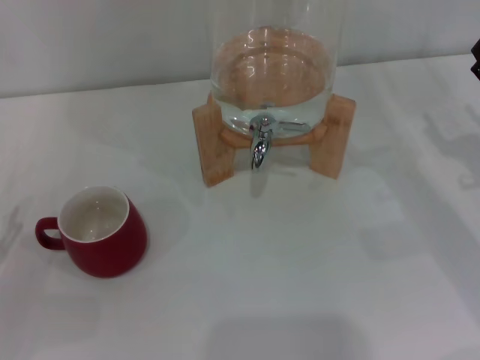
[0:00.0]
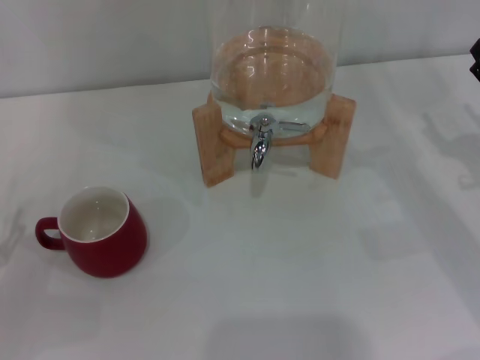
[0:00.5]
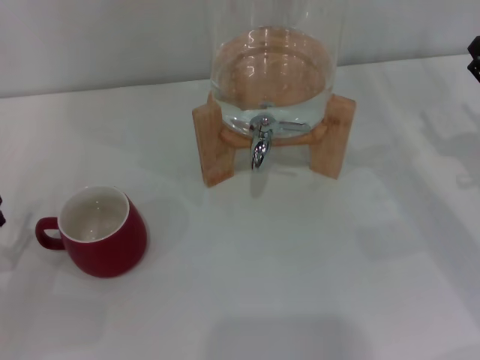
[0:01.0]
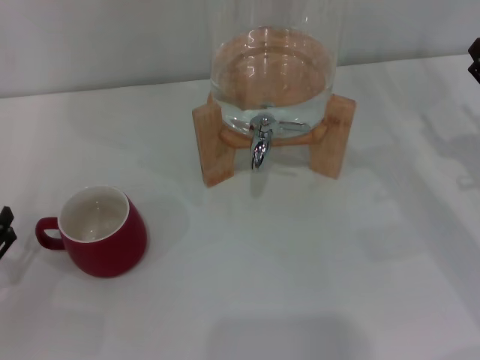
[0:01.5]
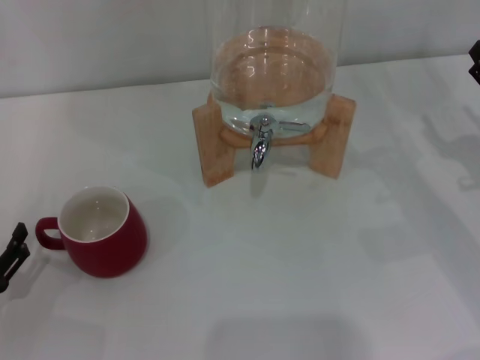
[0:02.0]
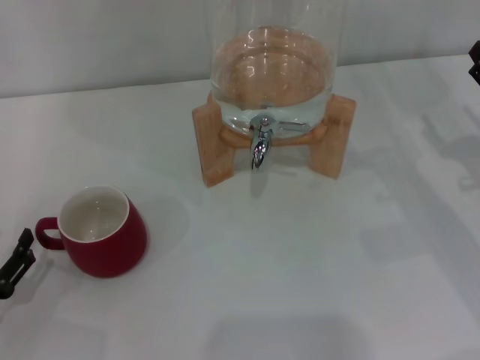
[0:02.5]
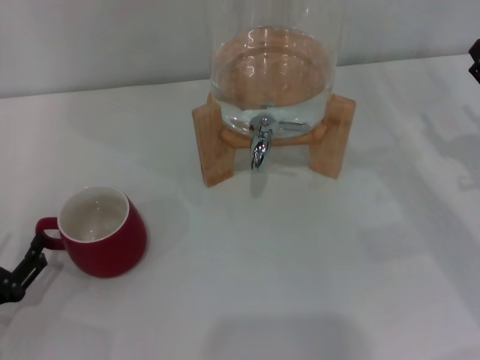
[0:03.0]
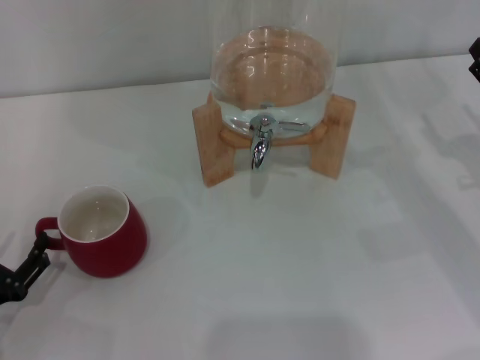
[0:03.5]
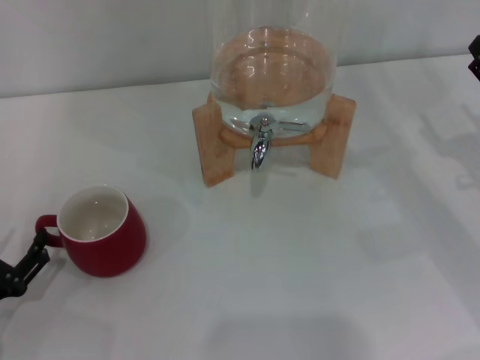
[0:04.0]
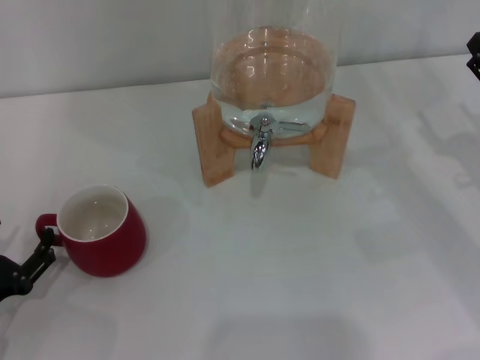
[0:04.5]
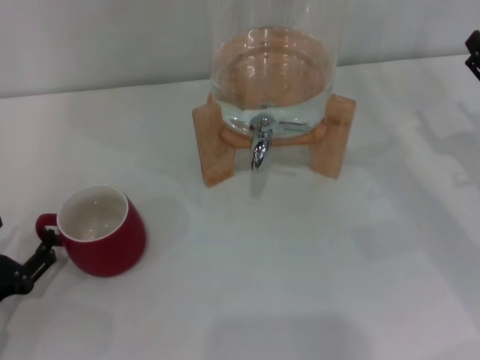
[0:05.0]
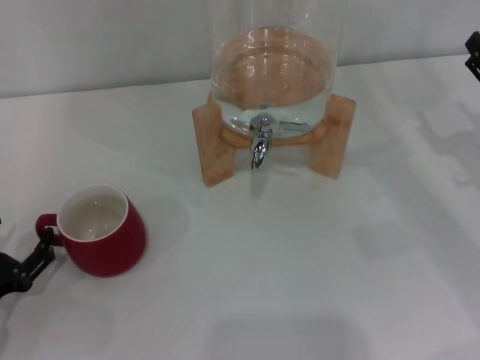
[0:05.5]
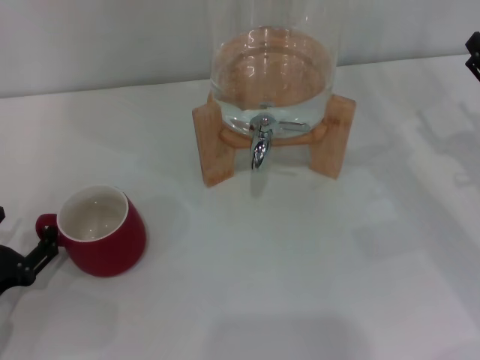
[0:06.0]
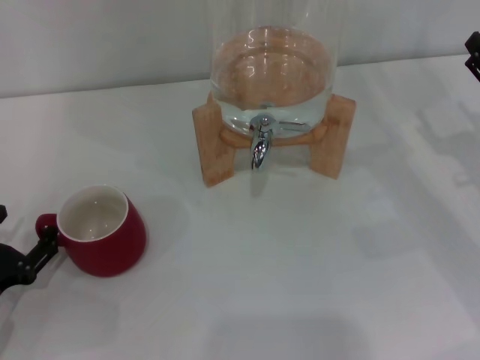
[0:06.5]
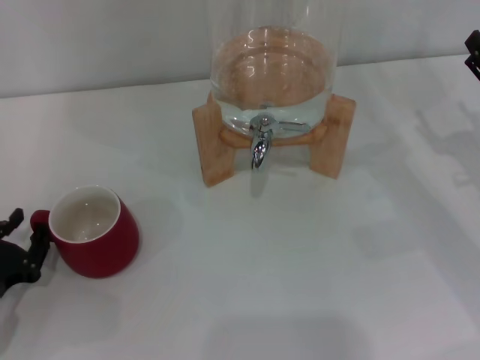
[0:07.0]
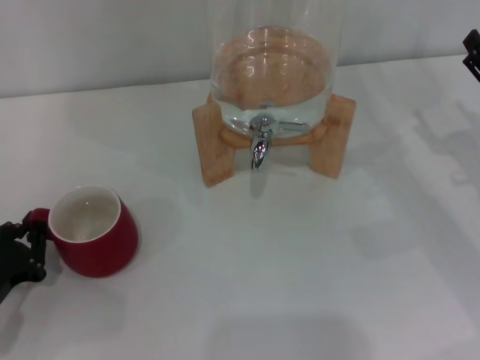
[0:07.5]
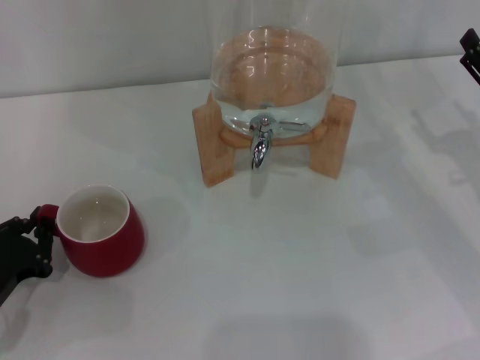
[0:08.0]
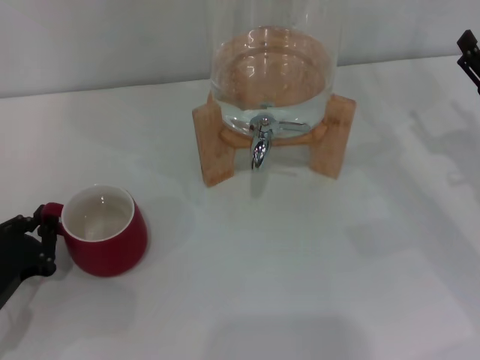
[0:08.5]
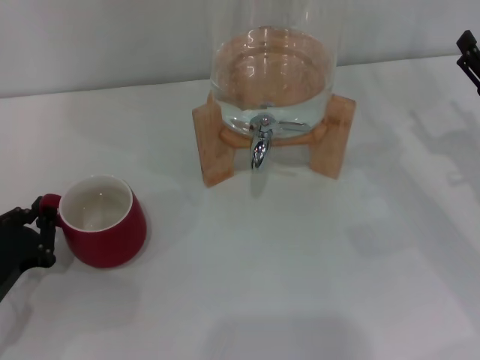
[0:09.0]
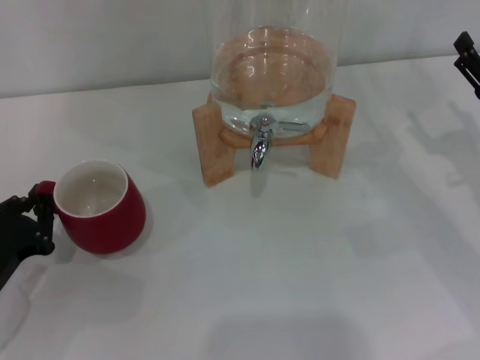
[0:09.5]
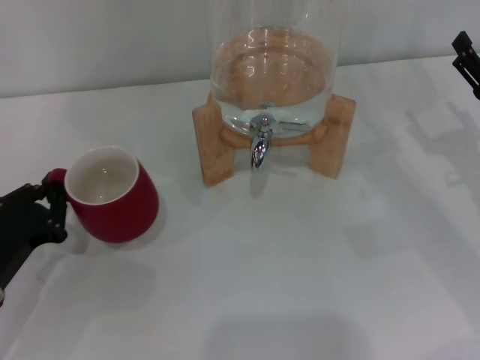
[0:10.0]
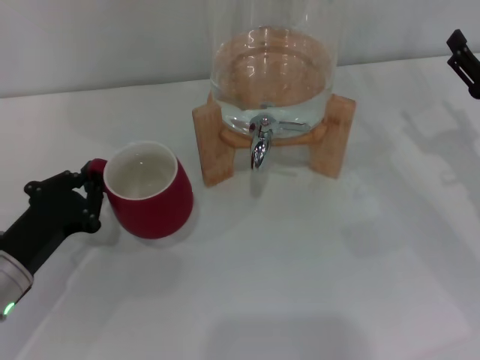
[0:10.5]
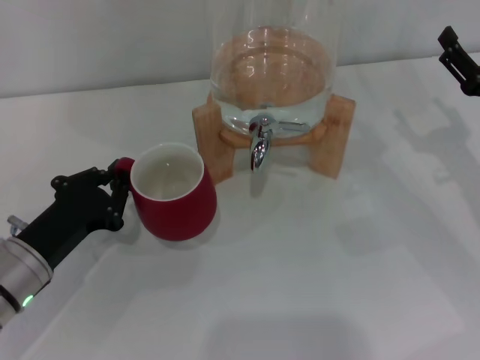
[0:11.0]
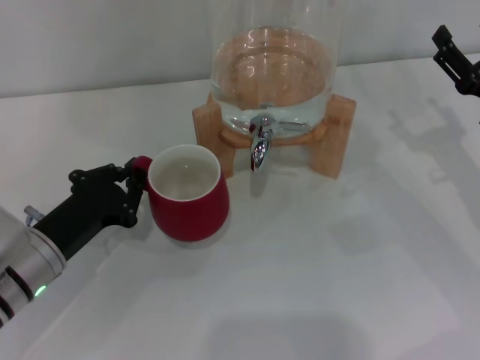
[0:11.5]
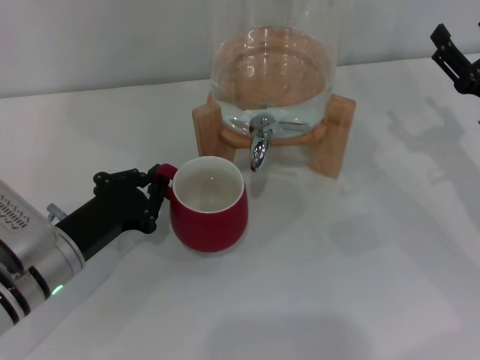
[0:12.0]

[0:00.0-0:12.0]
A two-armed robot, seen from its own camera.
Task of the whole recording: the left gripper pick up the red cup and place it horizontally under the faucet, the right gripper turn on the faucet to fill the cup, and then turn off the faucet.
0.0 to 2.0 s: The grippers make only small movements.
2.0 to 4.0 s: Both grippers stay put.
4.0 to 6.0 s: The grippers stay close to where they were, moving slightly.
6.0 to 8.0 s: The left gripper closes its fingers.
8.0 to 10.0 s: The grippers stay close to where they were, moving slightly.
10.0 to 12.0 s: The left gripper goes about 5 cm to the right.

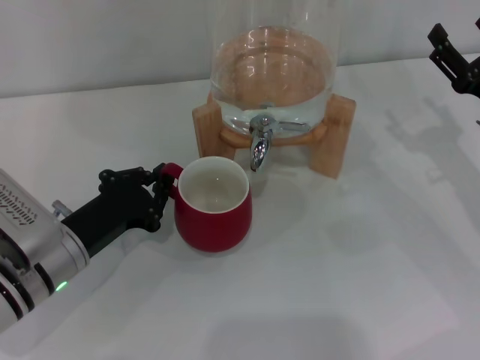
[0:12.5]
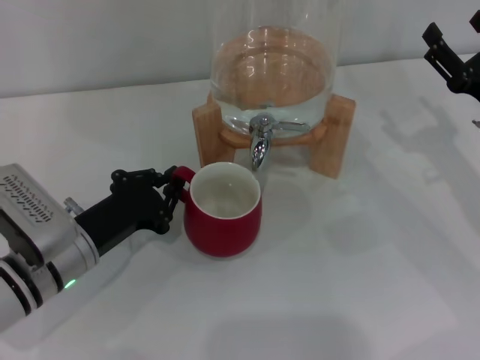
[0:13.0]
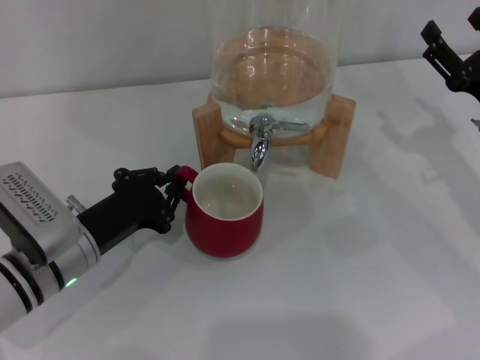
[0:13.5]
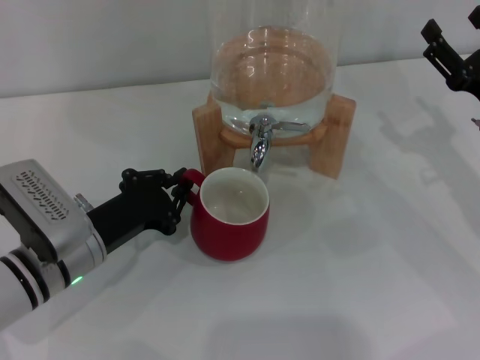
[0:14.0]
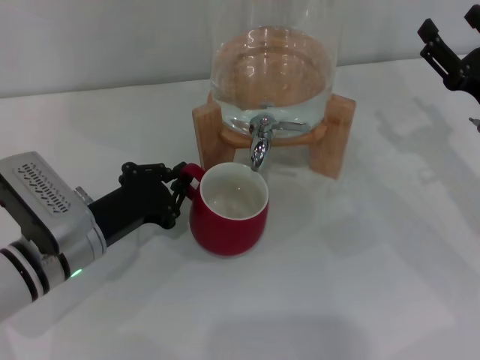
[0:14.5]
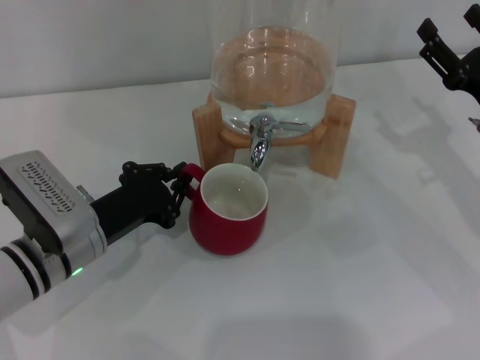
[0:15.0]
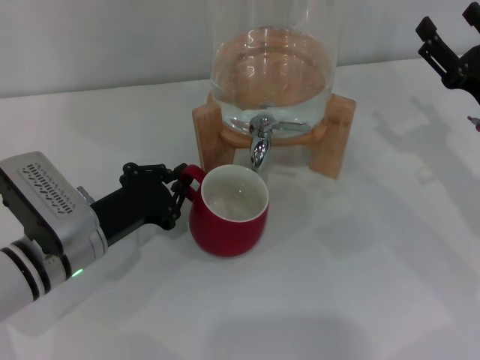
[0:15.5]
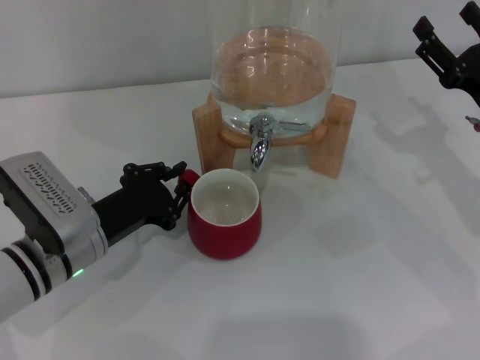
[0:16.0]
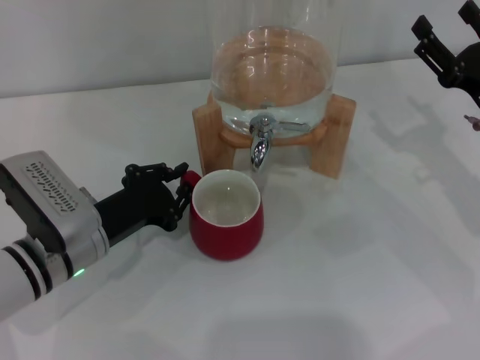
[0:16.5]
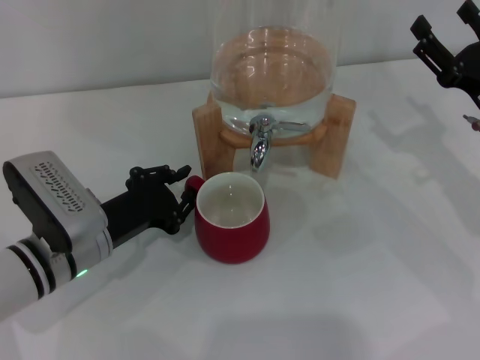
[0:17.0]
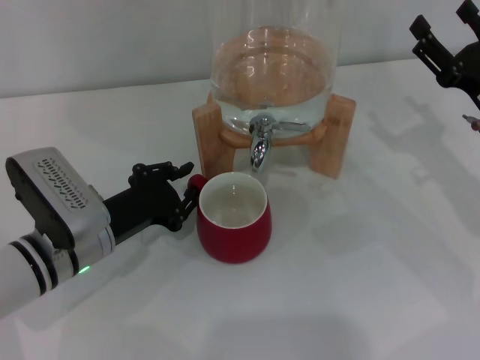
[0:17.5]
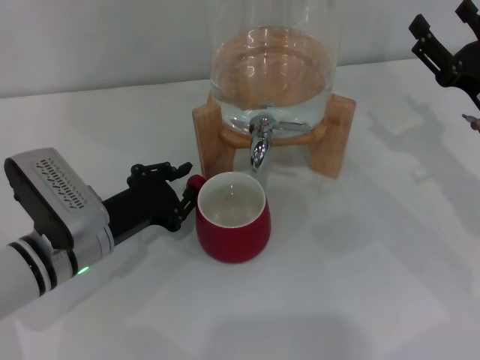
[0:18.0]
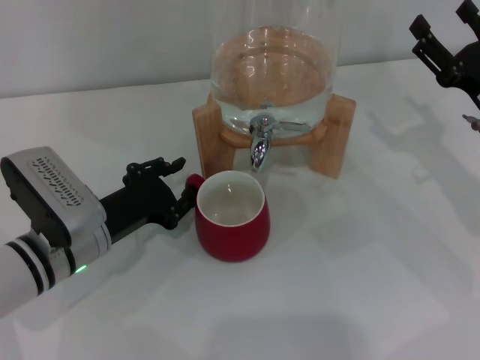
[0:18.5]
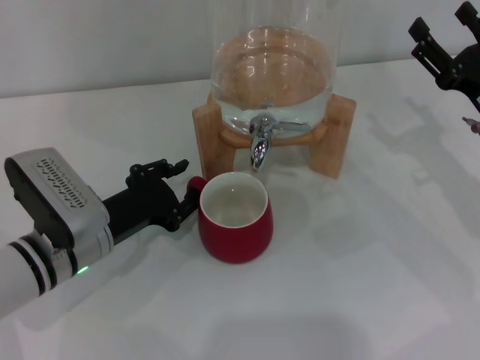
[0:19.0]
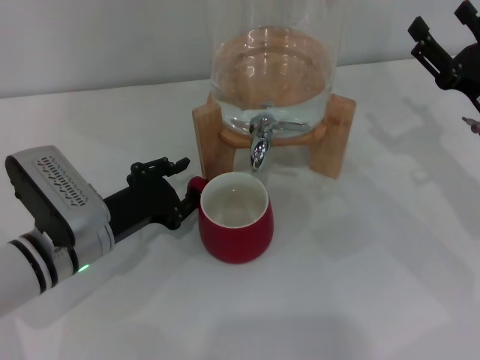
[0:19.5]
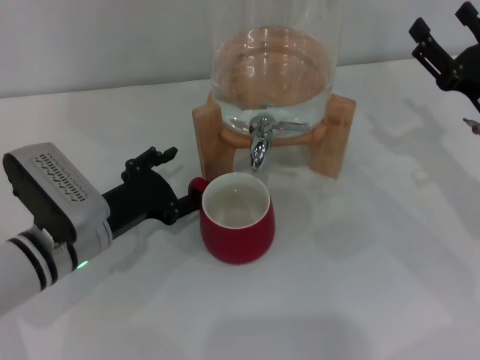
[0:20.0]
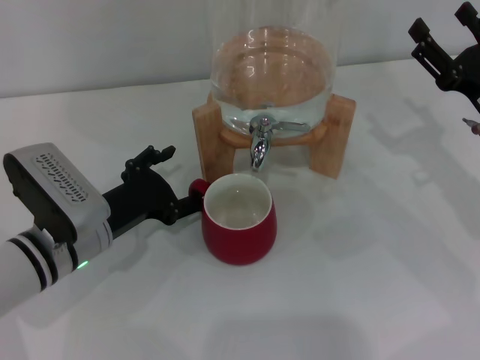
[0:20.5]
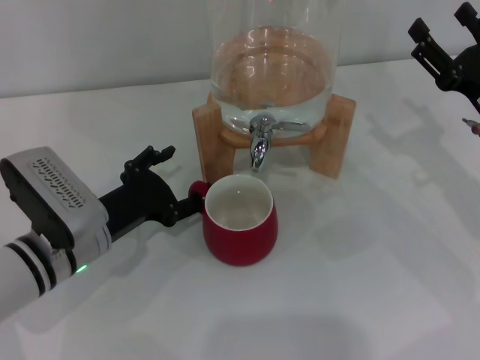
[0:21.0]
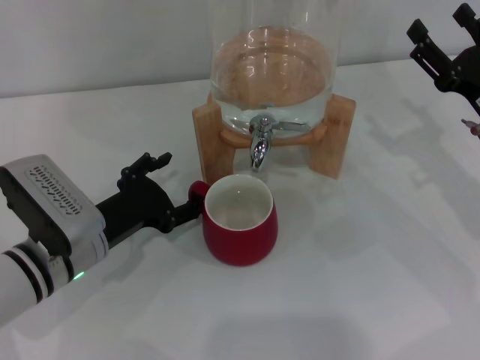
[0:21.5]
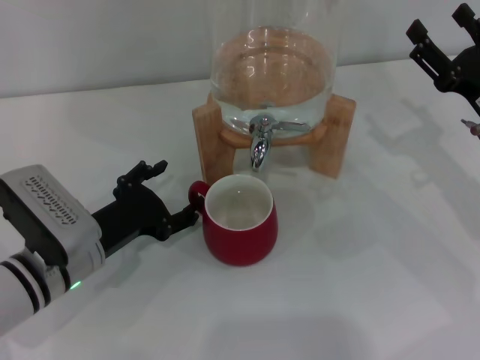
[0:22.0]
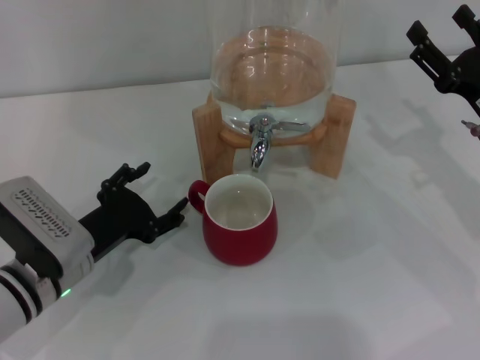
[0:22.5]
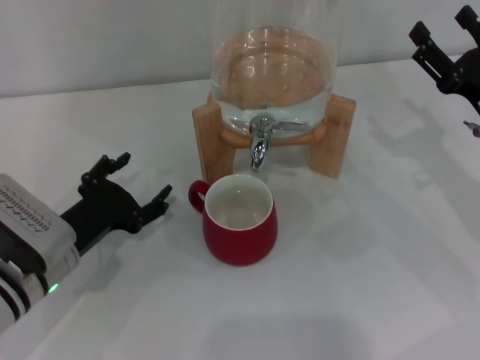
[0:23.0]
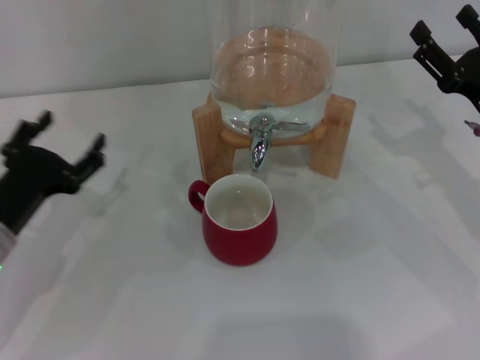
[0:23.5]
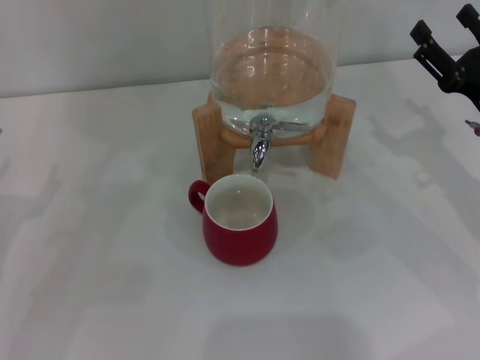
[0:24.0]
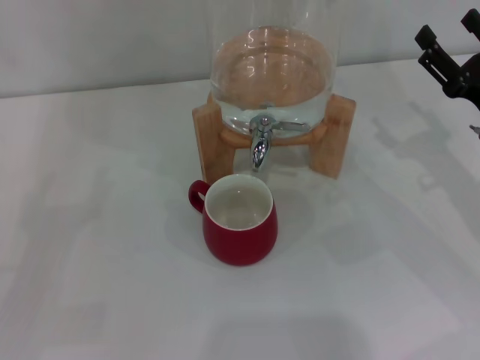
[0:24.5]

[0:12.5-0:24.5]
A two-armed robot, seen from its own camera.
Task of the whole recording: the left gripper pick up the red cup and place it horizontally under the faucet, the right gripper turn on the faucet to fill the cup, and then turn off the faucet.
12.5 to 14.5 s: There are only small adjustments of the grippers.
14.5 to 18.5 s: Both grippers stay about where they are.
18.5 to 20.5 s: The left gripper opens up.
20.5 to 22.5 s: The grippers move only a little.
22.5 to 24.5 s: The left gripper travels to the left by some 15 cm.

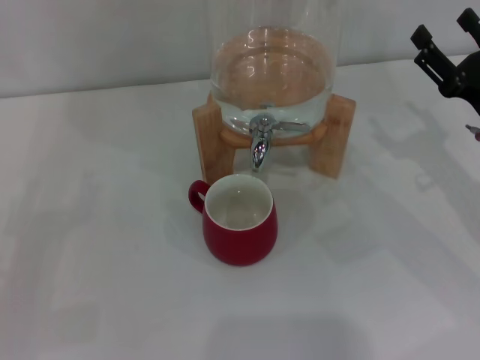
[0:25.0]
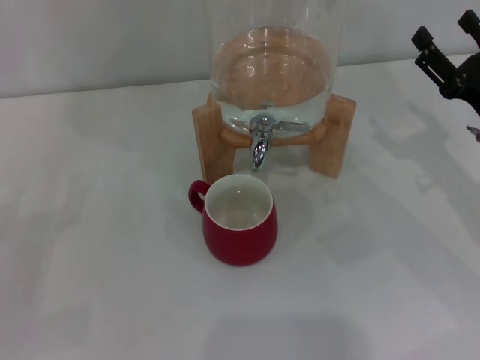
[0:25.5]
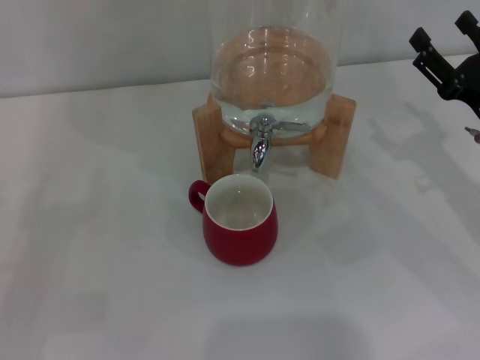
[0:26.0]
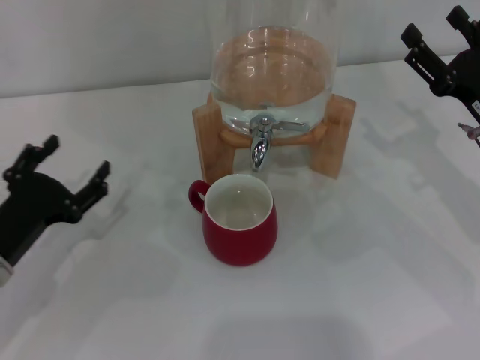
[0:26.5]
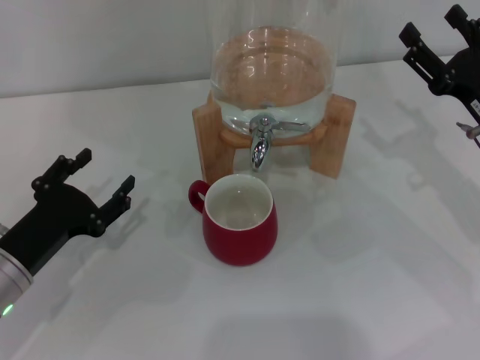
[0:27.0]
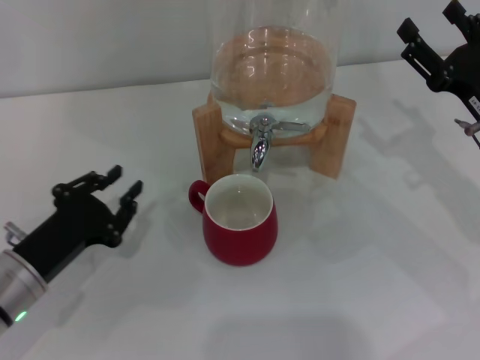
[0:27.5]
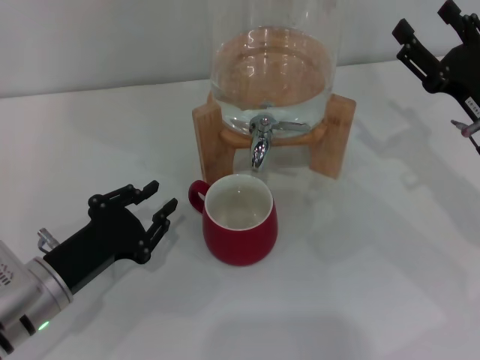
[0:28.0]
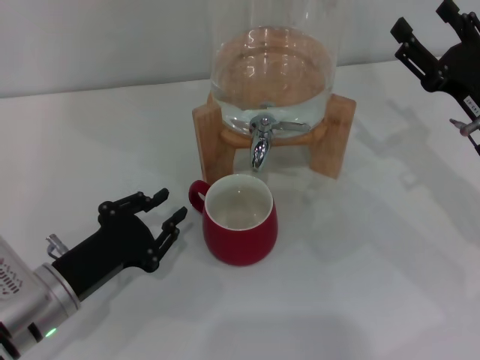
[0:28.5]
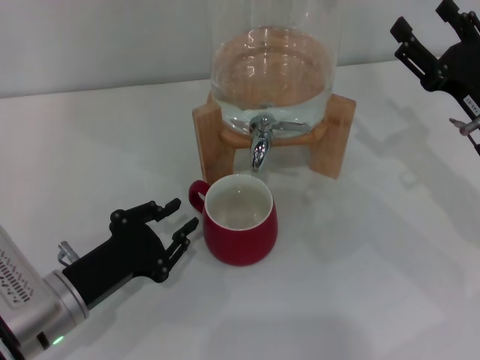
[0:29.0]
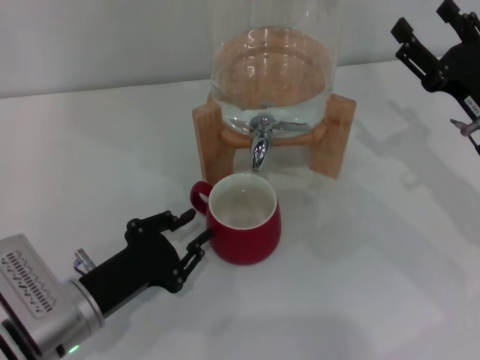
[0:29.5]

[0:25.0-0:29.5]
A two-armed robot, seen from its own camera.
Task of the whole recording: the left gripper pick up the red cup and place it horizontally under the faucet, the right gripper turn on the faucet to fill the cup, and then turn off the faucet.
25.0 to 27.0 s: The left gripper travels to the right by approximately 10 cm.
27.0 to 29.5 s: The left gripper heads to the right, covering about 5 cm, and closes.
